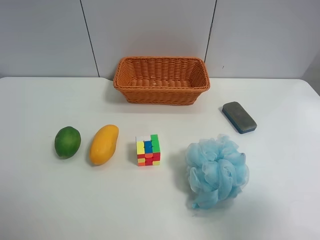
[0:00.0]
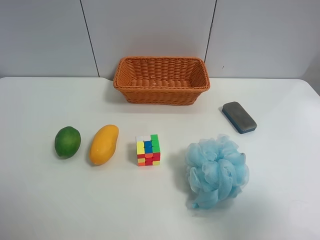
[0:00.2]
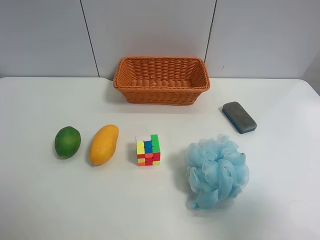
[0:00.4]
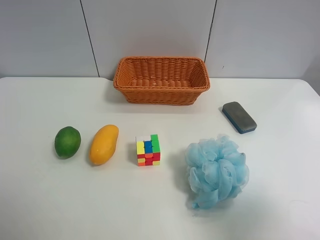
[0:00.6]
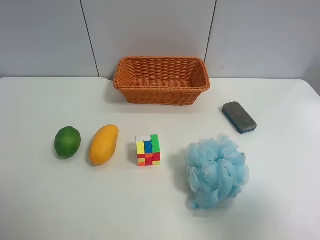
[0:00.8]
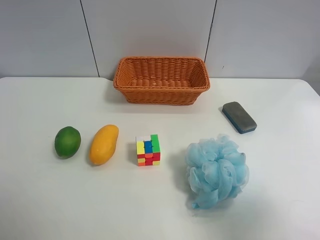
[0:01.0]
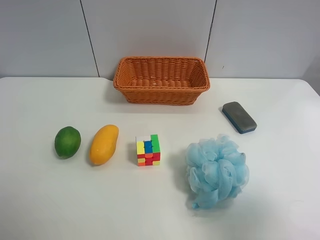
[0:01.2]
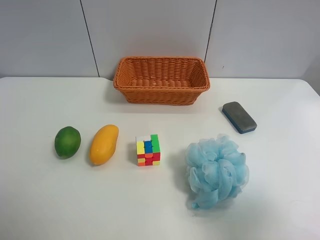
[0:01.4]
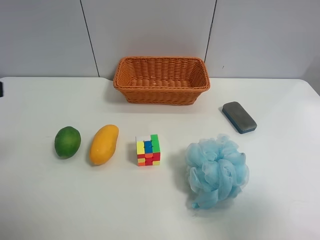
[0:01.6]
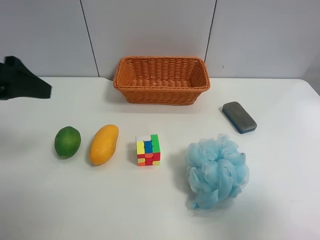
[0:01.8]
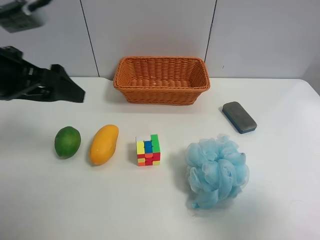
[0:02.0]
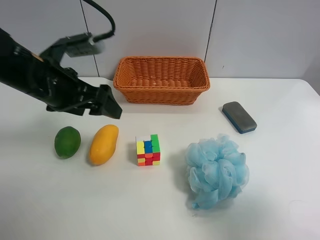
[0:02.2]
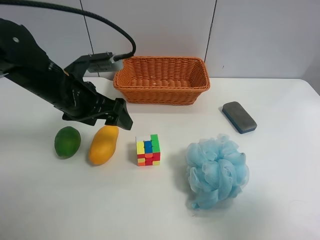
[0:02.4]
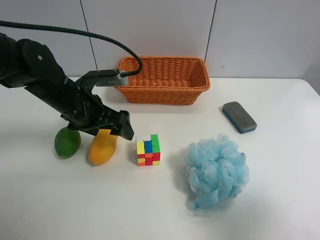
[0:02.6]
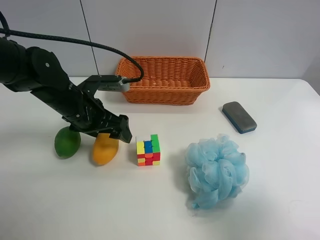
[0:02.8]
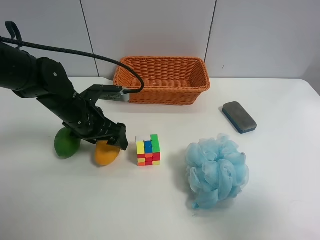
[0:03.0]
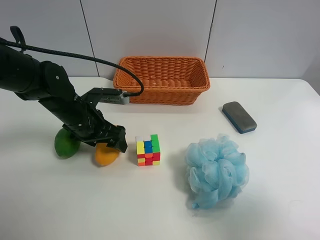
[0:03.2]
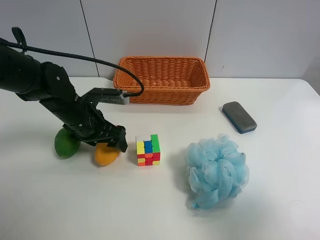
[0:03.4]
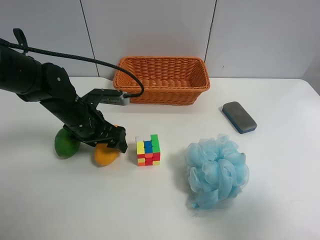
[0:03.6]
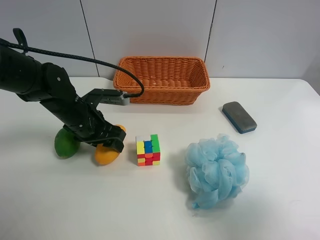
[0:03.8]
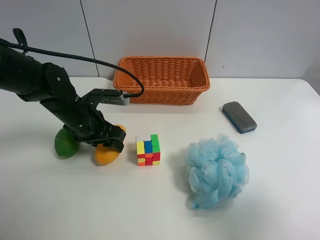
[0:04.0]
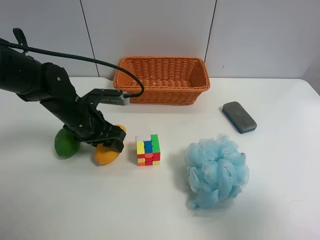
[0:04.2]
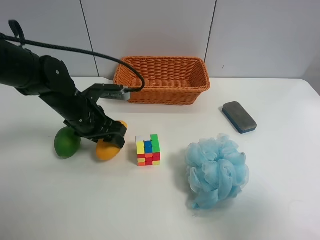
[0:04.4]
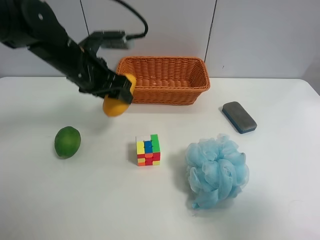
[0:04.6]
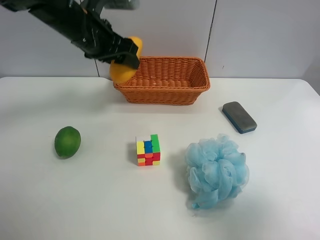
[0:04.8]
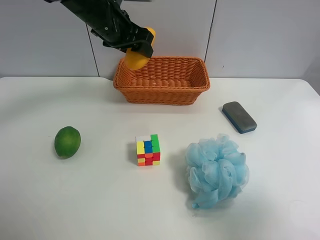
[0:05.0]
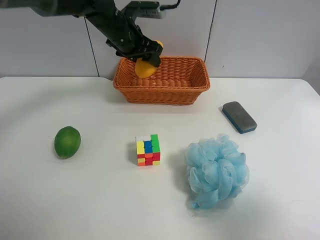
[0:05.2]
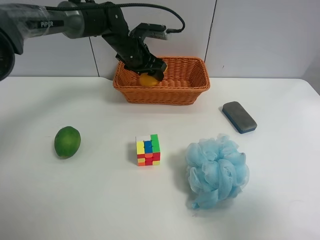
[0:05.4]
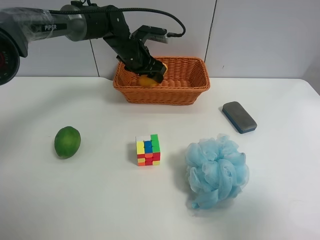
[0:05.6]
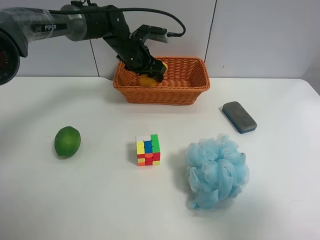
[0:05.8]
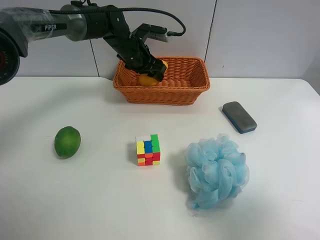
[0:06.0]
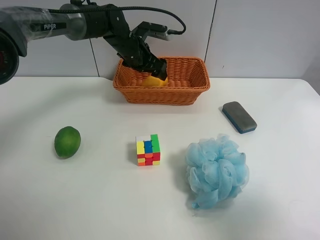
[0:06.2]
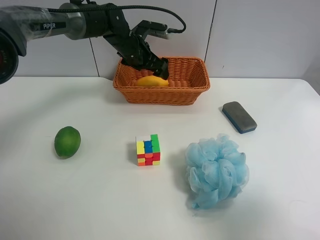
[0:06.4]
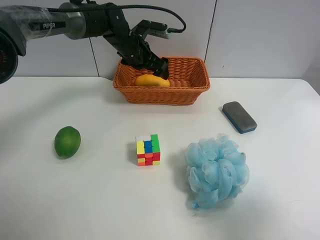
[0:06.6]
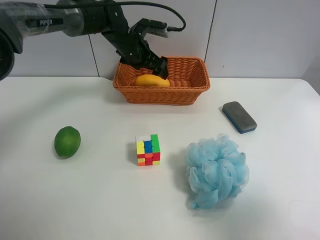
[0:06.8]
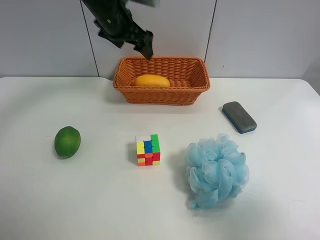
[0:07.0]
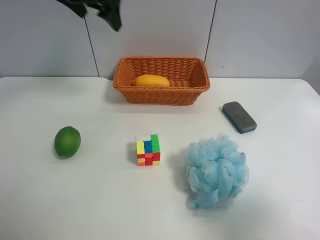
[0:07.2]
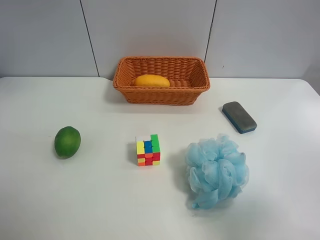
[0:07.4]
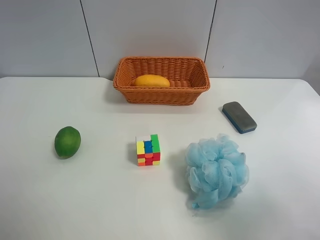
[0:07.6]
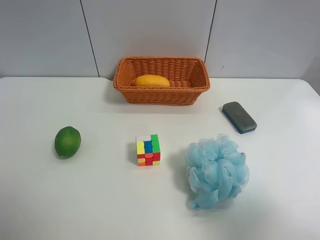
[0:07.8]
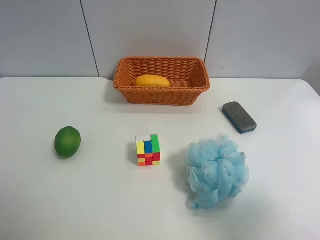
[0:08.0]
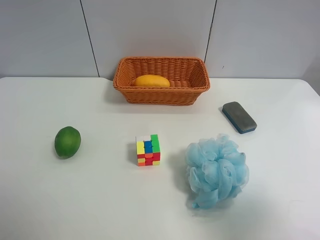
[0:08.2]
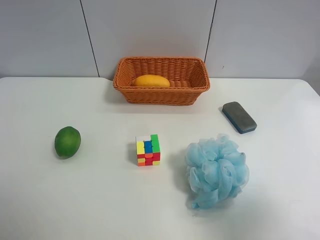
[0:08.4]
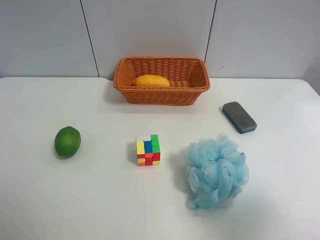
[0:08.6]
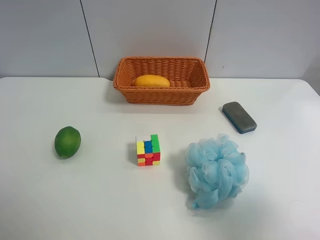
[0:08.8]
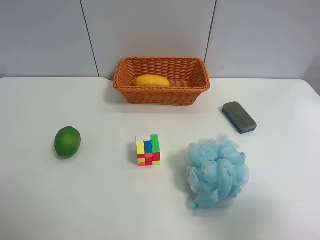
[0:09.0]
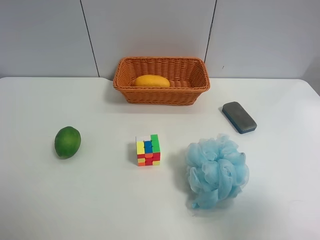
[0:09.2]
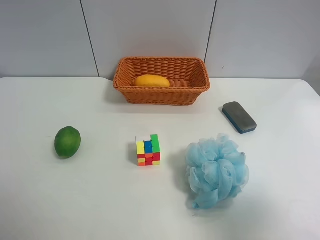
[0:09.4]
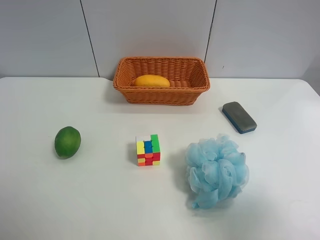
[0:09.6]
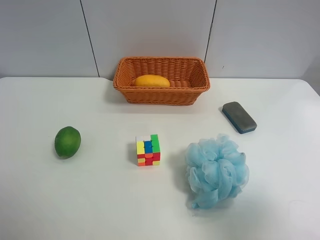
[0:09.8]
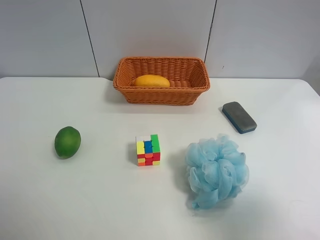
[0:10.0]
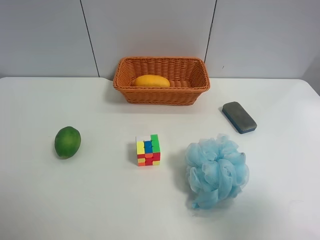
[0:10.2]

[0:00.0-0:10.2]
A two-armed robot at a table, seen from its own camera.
Task of the whole recording: Randomly grab green lemon or mangoes from the table and put them in a basket.
Step, 0:00.0 to 0:04.0: Grasp the mango with the left gripper.
Step, 0:04.2 to 0:07.0: Place the mango into the basket with the left gripper.
0:01.4 to 0:03.0: The left gripper travels downward, forward and to the right by roughly 30 cm, and closes up.
0:03.0 to 0:04.4: The left gripper closes up.
0:04.4 to 0:05.8: The left gripper heads forward and to the right, covering about 20 cm.
0:05.8 to 0:07.2: The left gripper is displaced upward and to the left by roughly 20 cm, and opens its fingers.
0:07.2 to 0:08.8: The left gripper travels backward by about 40 cm.

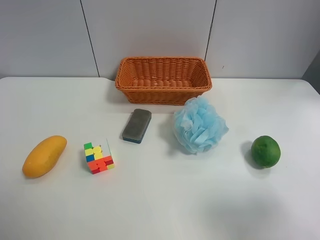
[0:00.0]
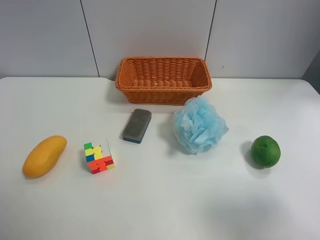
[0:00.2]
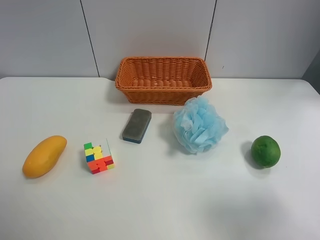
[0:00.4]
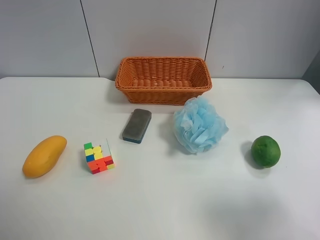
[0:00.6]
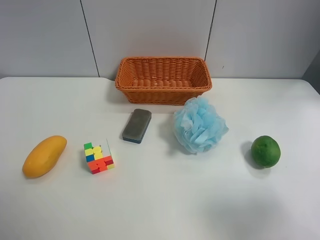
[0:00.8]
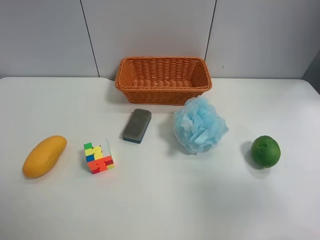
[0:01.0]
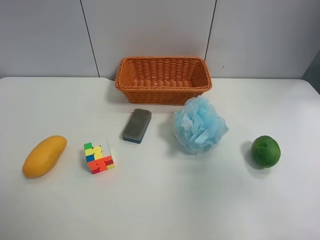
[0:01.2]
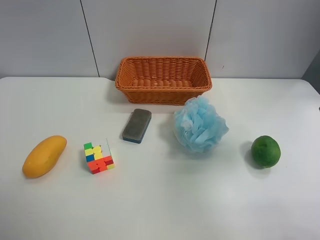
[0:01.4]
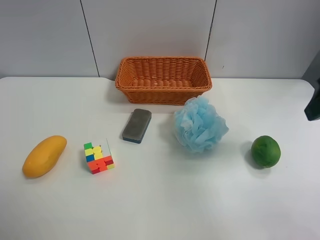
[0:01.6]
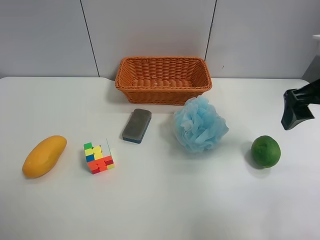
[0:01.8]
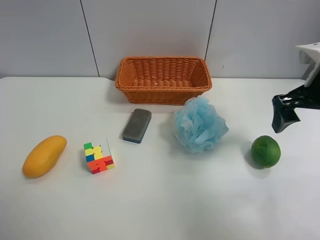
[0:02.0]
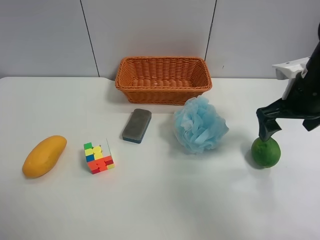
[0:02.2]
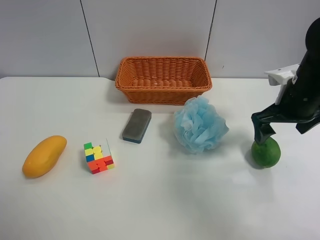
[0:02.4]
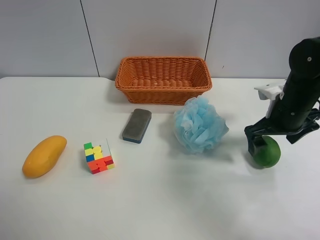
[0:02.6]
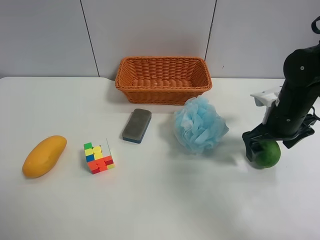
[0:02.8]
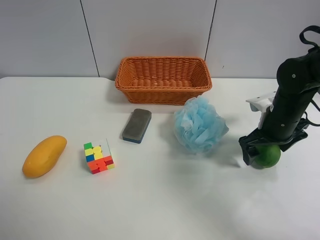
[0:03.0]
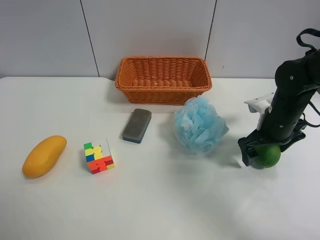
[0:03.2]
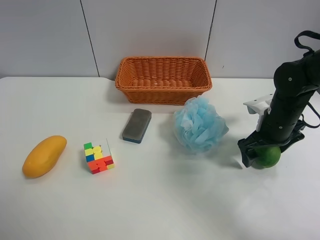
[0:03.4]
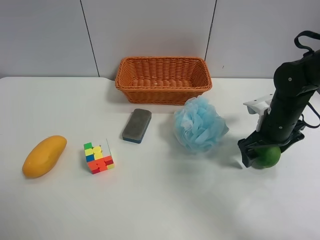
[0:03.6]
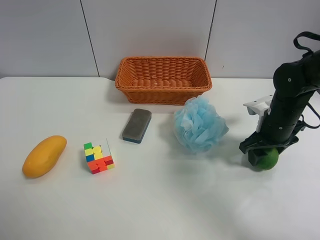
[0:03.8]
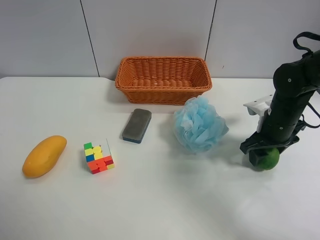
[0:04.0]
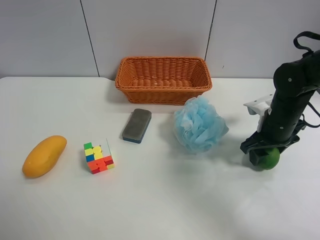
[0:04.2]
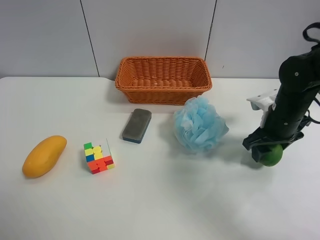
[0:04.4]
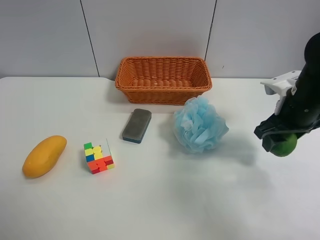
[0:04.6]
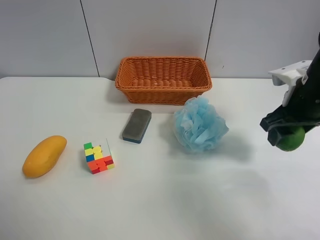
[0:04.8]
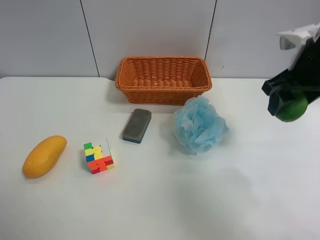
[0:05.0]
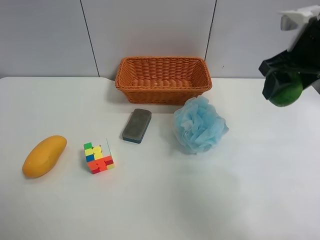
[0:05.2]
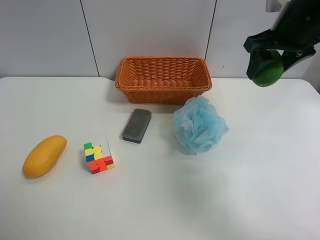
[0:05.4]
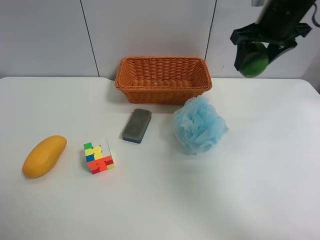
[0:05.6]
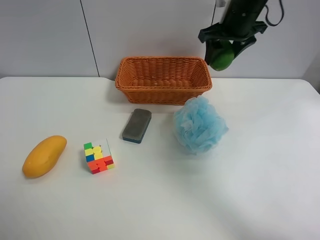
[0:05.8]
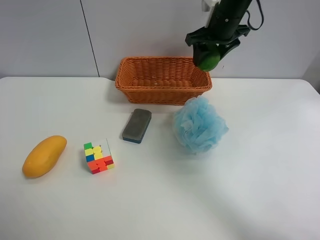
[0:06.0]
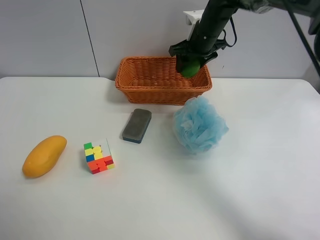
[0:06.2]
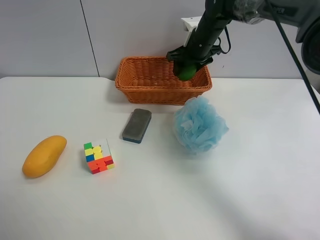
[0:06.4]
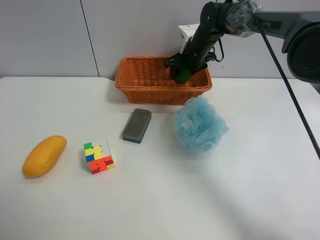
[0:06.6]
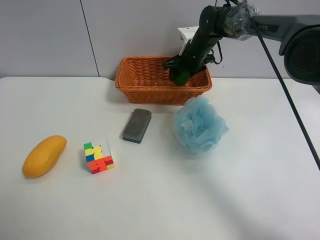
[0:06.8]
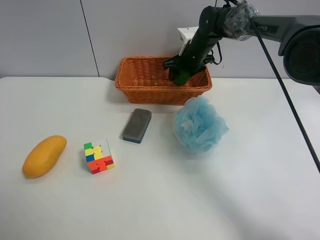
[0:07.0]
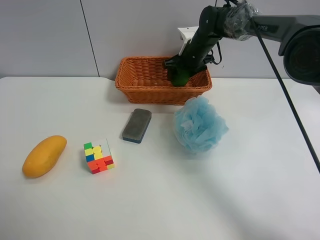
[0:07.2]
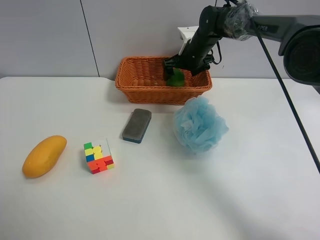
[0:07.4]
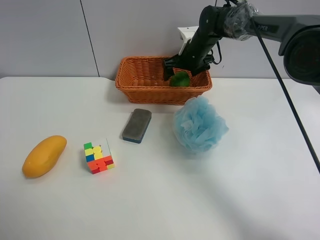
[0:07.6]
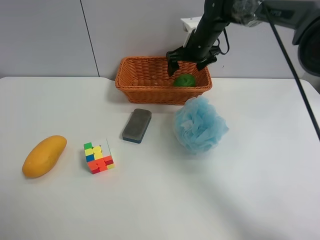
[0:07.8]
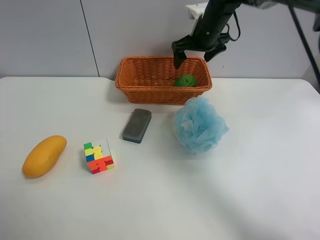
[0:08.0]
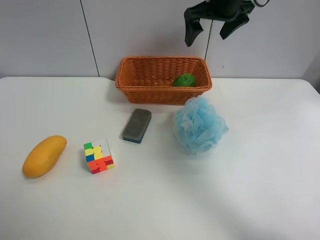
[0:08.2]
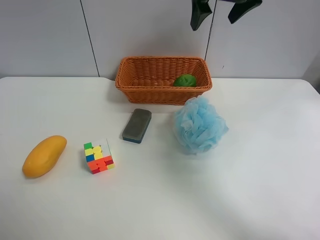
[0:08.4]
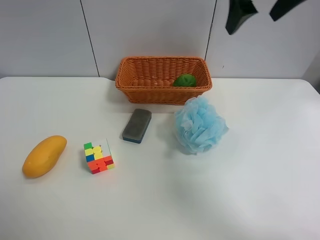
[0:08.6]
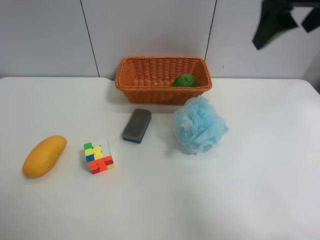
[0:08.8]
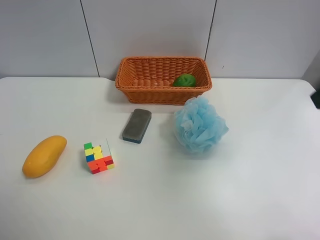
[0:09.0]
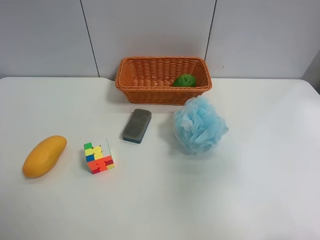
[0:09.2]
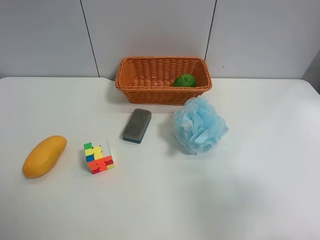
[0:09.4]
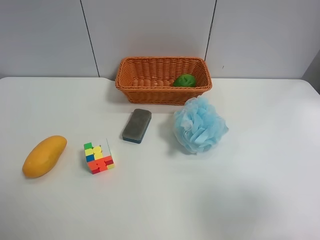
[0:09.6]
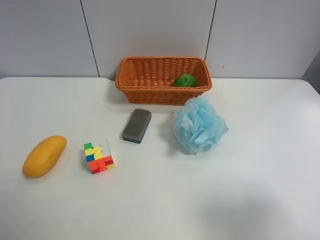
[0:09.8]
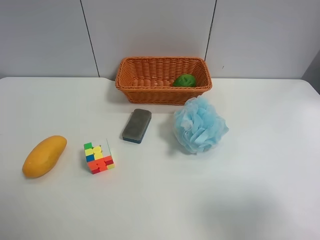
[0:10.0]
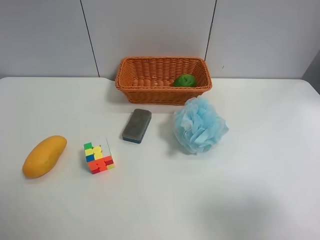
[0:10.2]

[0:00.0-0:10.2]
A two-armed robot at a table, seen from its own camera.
Task of the whole recording: Randomly grab green lemon or mangoes from the table and put them in a basket.
Step, 0:00.0 to 0:03.8: Grasp the Lemon with the right gripper.
Step, 0:04.0 to 0:08.0: Place the Lemon into the basket with the right gripper.
0:00.0 to 0:01.4: The right gripper heads forward and upward, covering approximately 15 cm.
0:01.4 to 0:03.0: The right gripper goes about 25 cm downward and forward.
0:03.0 to 0:04.4: The right gripper closes up.
0:04.4 to 0:05.8: The right gripper goes roughly 20 cm forward, upward and to the left.
0:05.8 to 0:07.2: The right gripper shifts about 15 cm downward, forward and to the left, and opens up.
0:07.2 to 0:08.8: The right gripper travels backward and upward by roughly 35 cm, and opens.
0:08.8 to 0:10.2: The right gripper shifts about 25 cm backward and downward.
